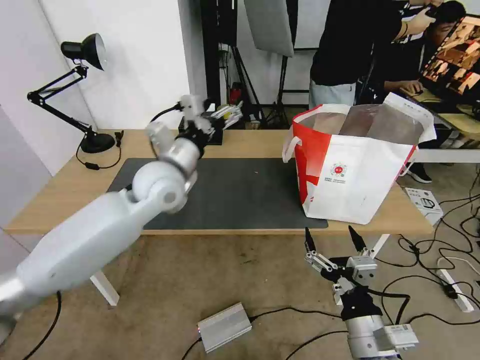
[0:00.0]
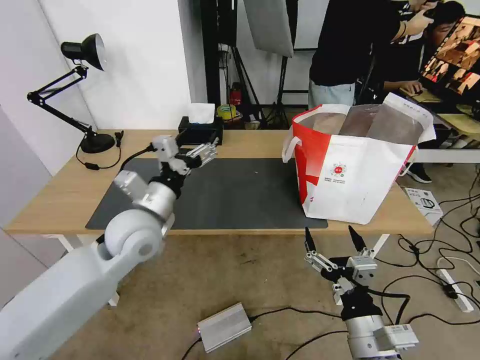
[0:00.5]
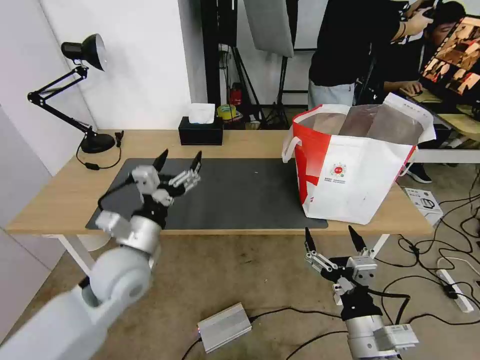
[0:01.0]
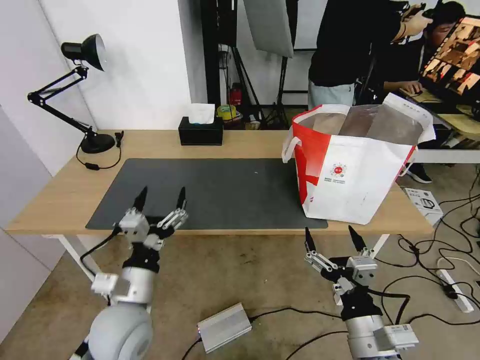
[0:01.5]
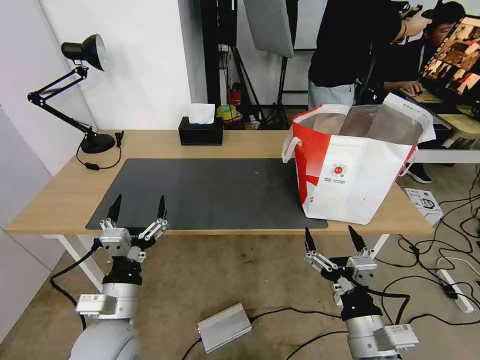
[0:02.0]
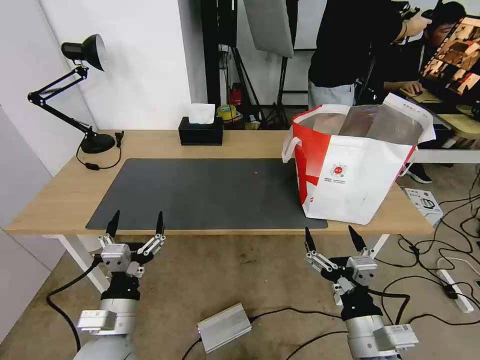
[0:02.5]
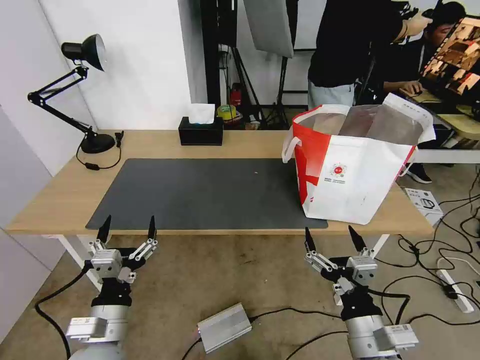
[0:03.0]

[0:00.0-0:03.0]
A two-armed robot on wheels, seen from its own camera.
Task of the whole recording: Pick up the trash from the table and place it into the takeout bag.
0:00.0 to 0:01.5: The left gripper moves backward and downward, approximately 25 cm.
0:01.5 to 0:03.0: The left gripper travels backward by some 5 cm.
